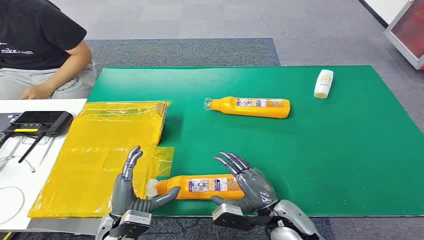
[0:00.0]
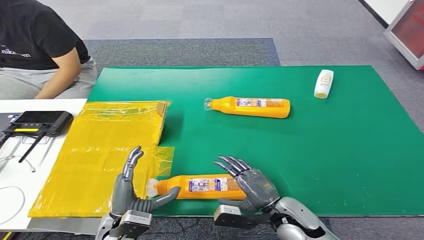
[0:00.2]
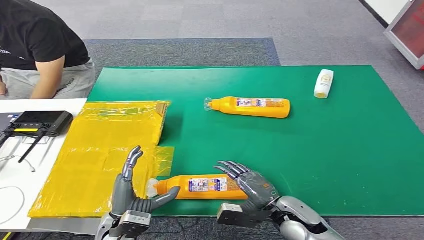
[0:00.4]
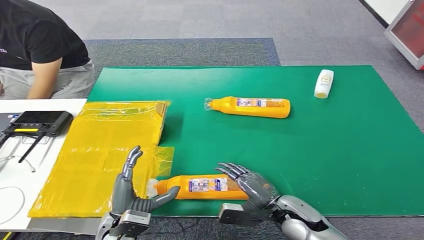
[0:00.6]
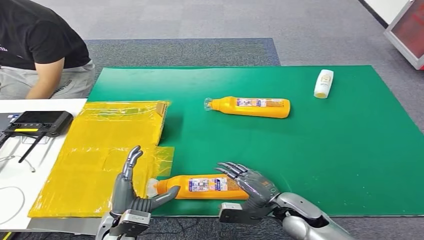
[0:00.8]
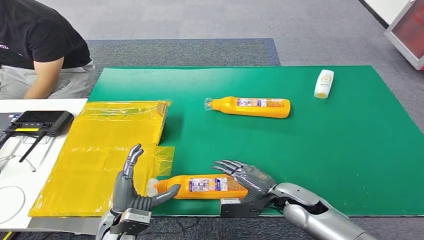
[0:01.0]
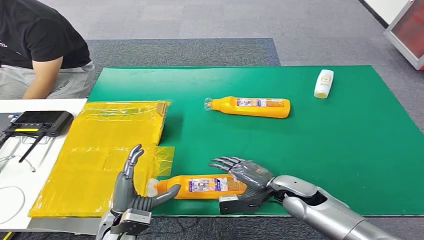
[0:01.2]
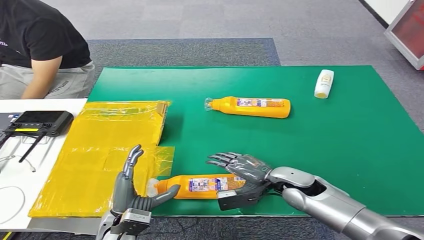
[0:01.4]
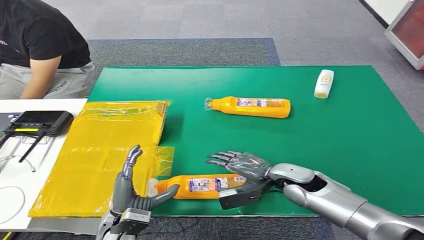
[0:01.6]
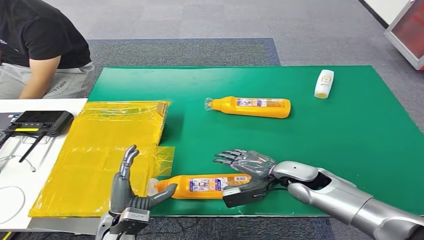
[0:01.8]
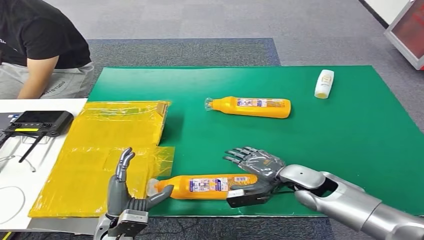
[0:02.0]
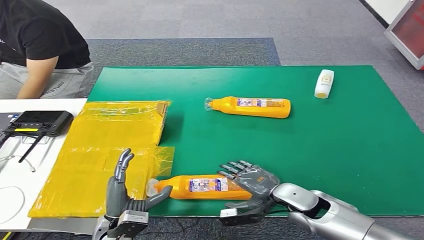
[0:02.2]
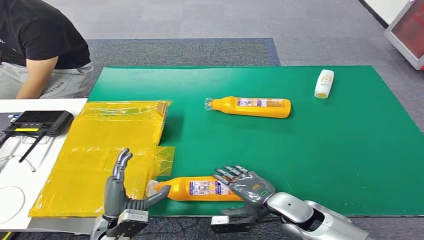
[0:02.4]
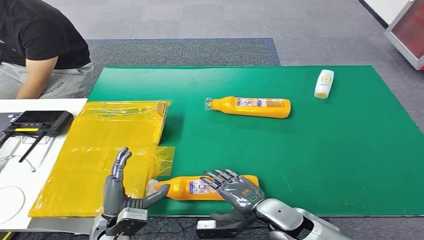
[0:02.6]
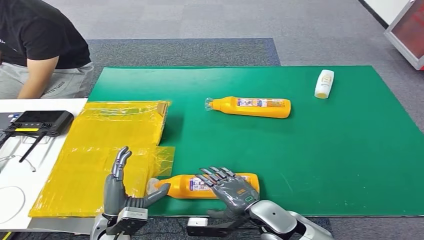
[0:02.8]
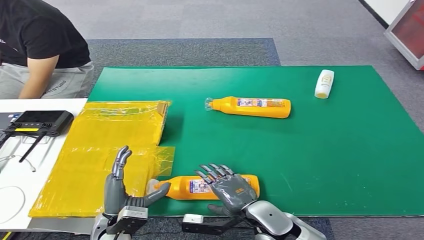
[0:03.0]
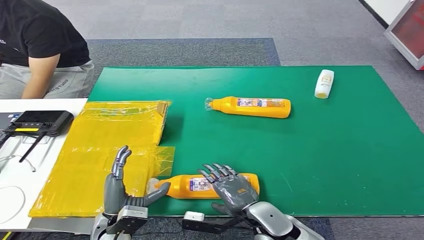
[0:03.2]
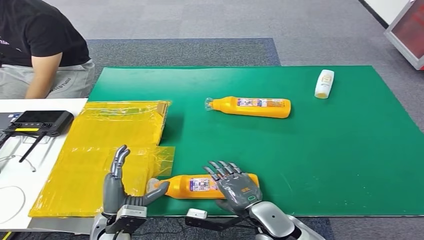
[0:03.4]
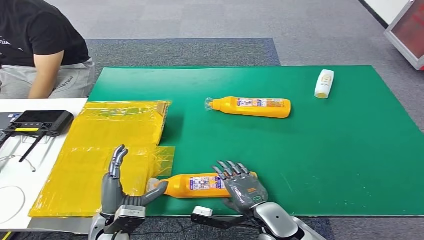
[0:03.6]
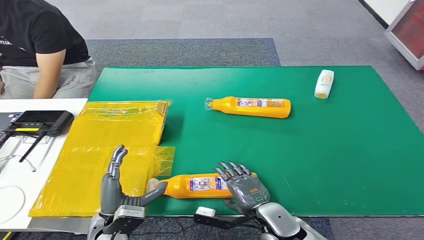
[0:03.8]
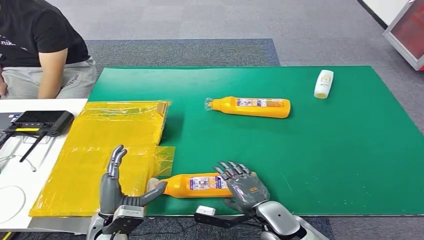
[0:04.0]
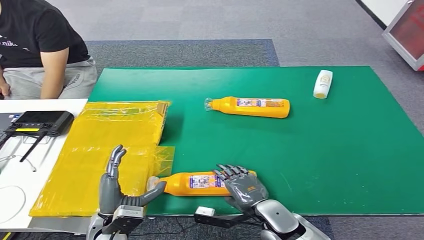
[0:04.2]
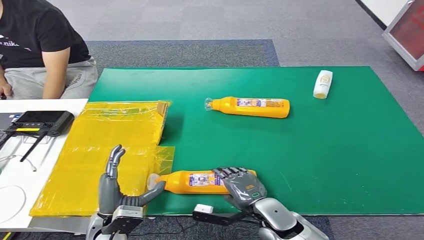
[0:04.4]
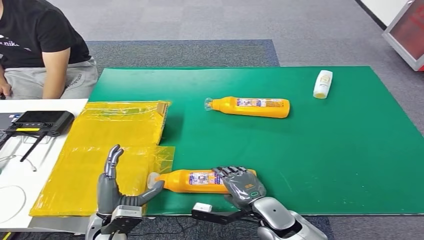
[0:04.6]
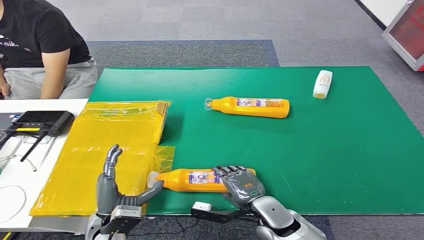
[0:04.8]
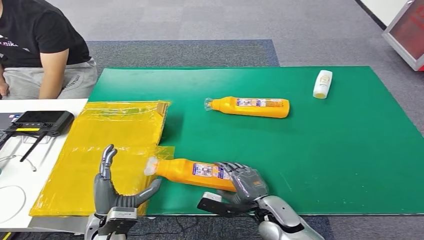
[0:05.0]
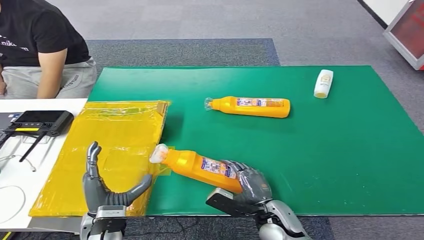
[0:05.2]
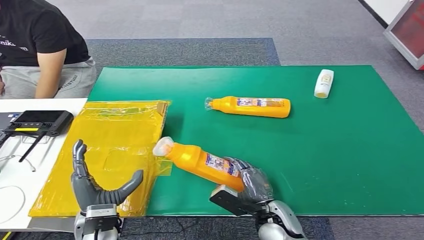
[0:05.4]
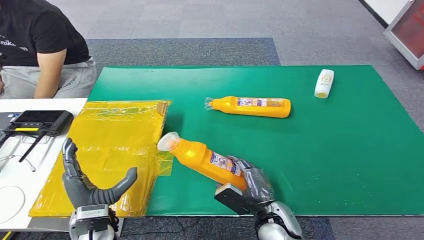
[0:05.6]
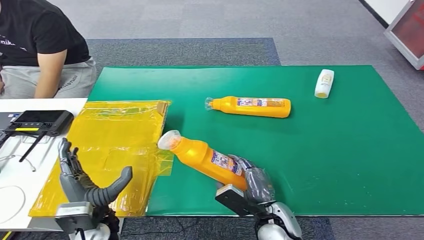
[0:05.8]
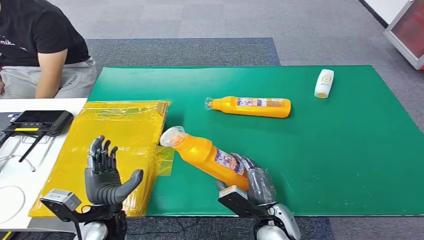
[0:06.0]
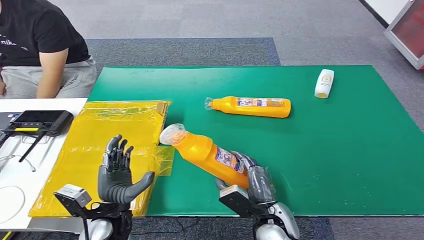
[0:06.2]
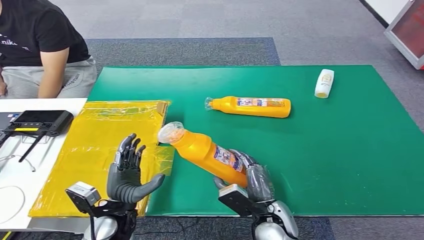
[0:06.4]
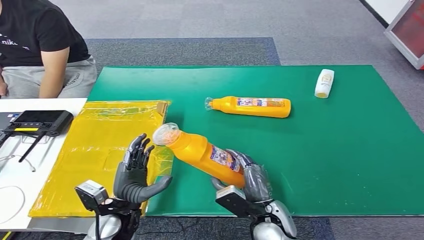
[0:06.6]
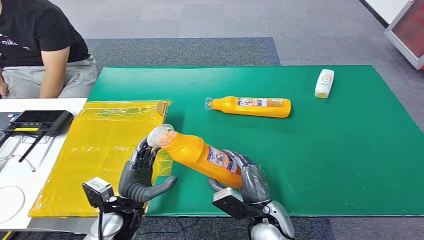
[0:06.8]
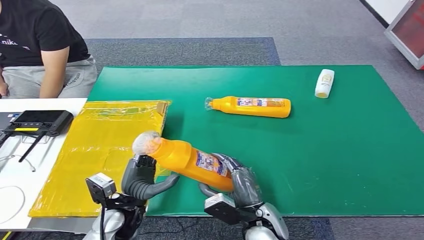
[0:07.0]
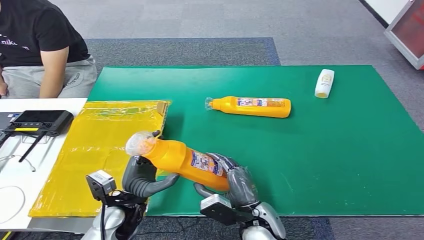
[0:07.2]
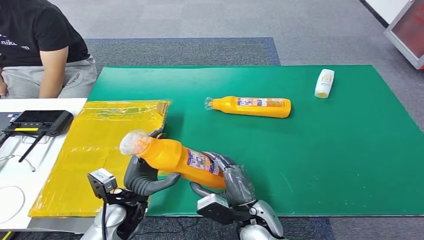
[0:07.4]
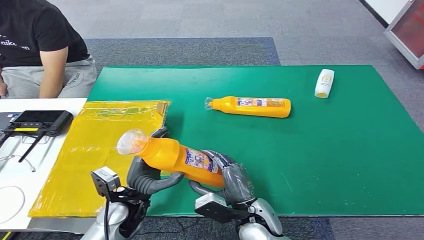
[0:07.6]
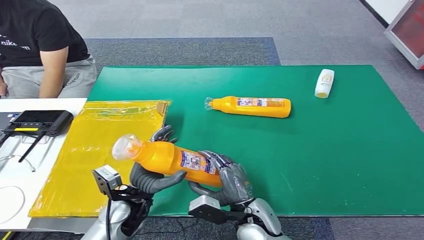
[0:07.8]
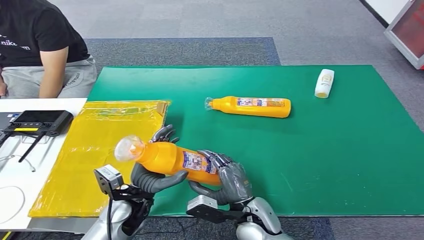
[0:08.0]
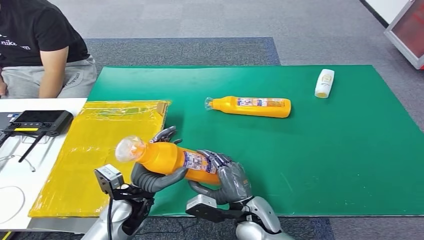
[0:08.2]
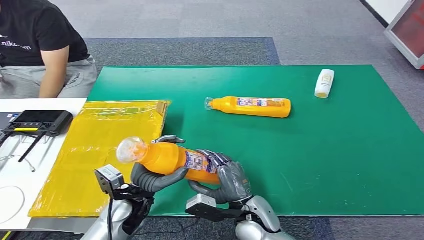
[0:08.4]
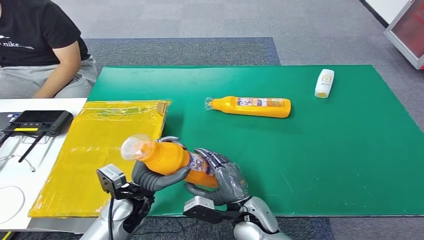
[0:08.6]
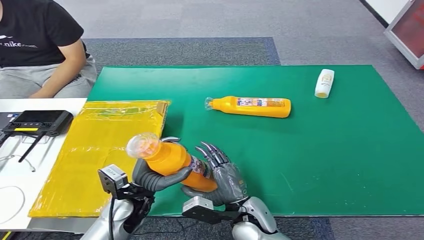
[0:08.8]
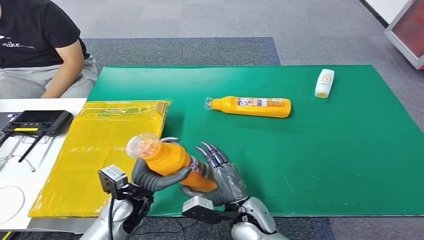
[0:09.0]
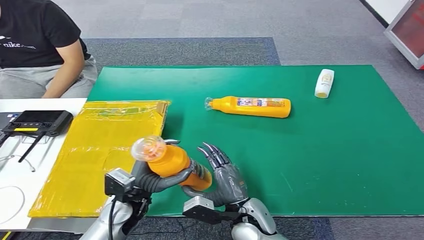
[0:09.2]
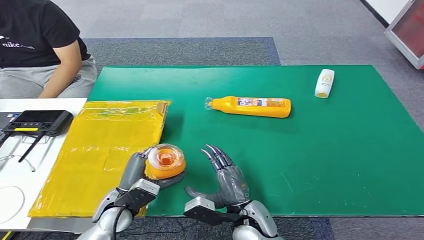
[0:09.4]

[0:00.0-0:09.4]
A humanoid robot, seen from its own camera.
Step, 0:00.0 to 0:05.6: Pick up the bottle from the table.
Step, 0:05.8 to 0:09.4: Turn the bottle to the front side.
0:01.6 to 0:03.2: The right hand shifts roughly 15 cm backward and to the left.
0:03.2 to 0:04.8: The hands stay close to where they were, moving slightly.
